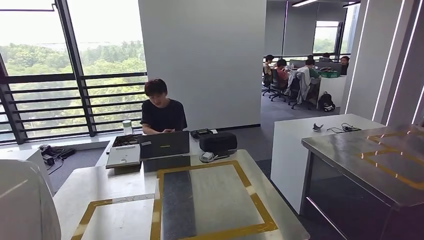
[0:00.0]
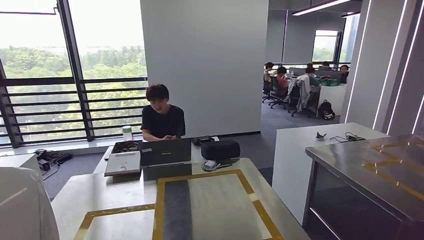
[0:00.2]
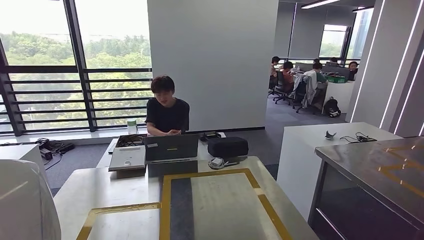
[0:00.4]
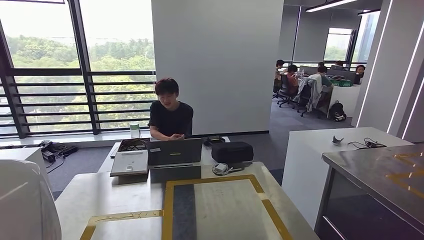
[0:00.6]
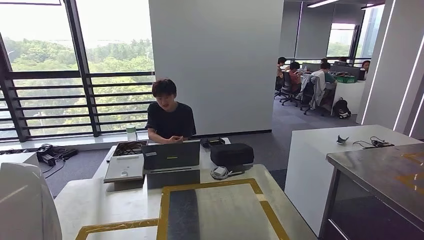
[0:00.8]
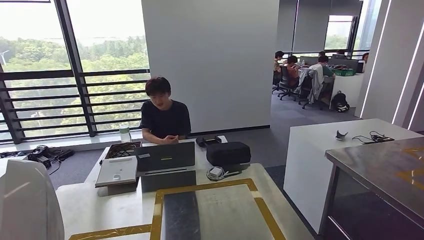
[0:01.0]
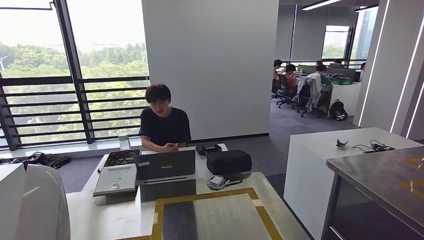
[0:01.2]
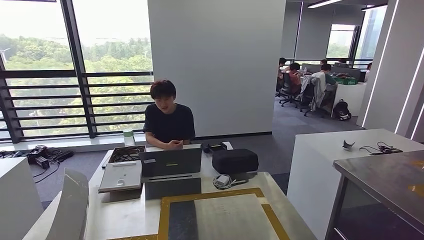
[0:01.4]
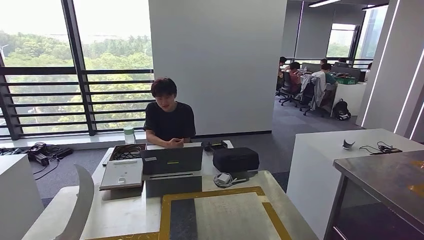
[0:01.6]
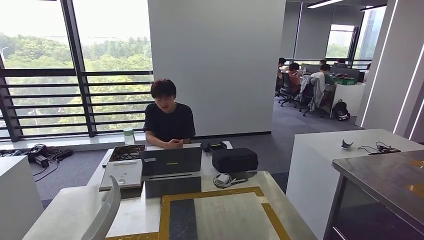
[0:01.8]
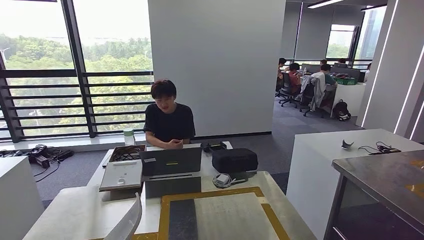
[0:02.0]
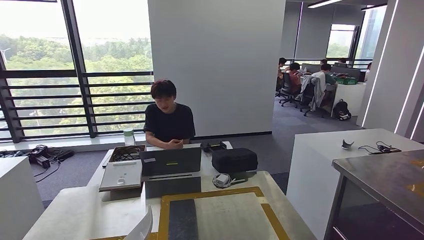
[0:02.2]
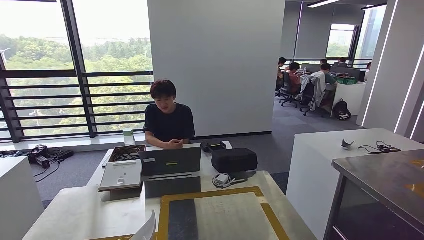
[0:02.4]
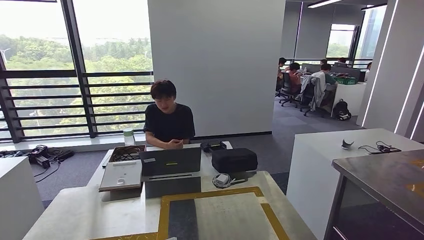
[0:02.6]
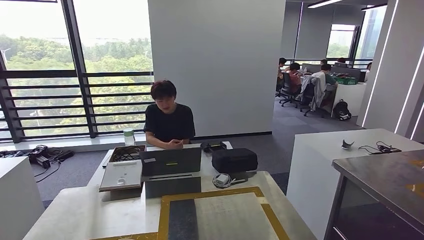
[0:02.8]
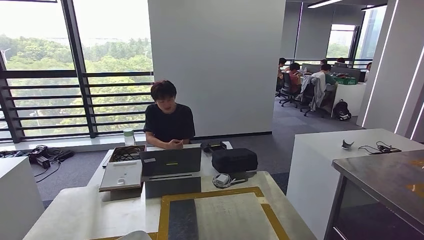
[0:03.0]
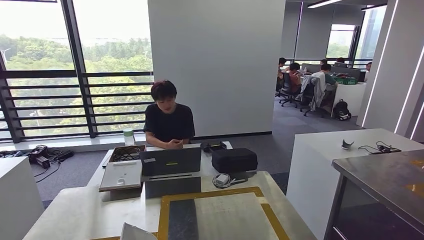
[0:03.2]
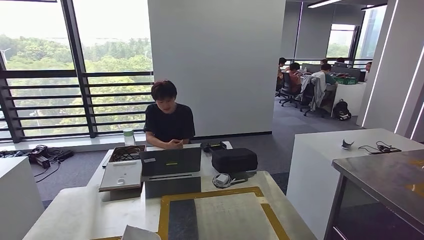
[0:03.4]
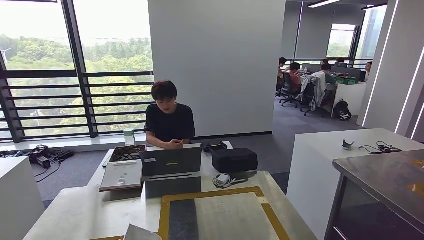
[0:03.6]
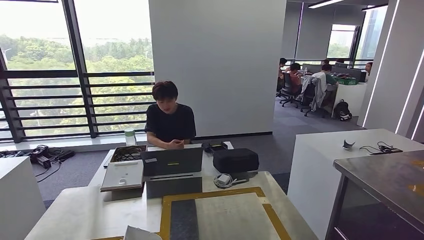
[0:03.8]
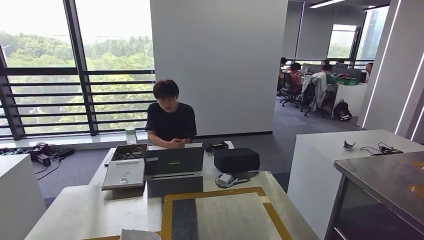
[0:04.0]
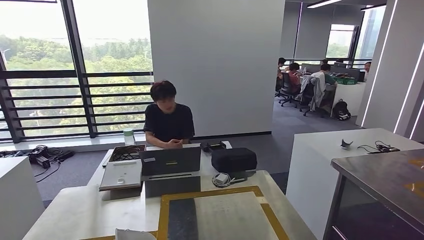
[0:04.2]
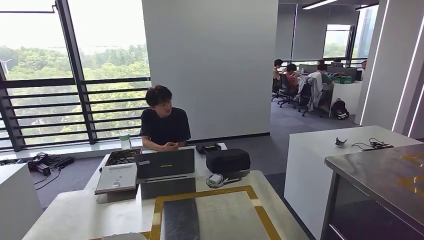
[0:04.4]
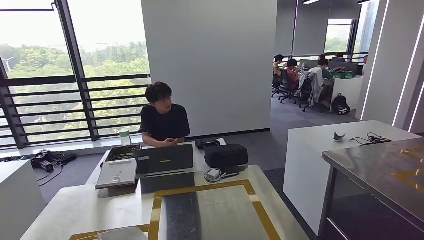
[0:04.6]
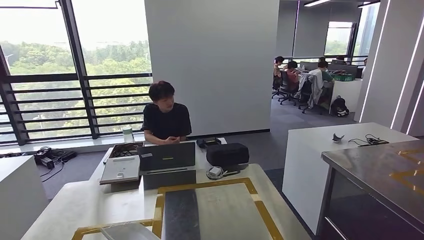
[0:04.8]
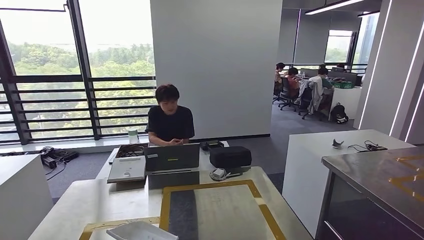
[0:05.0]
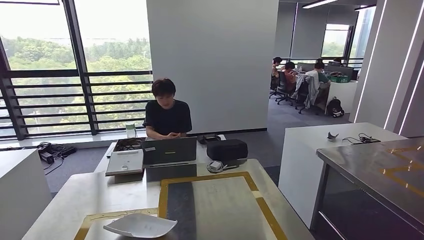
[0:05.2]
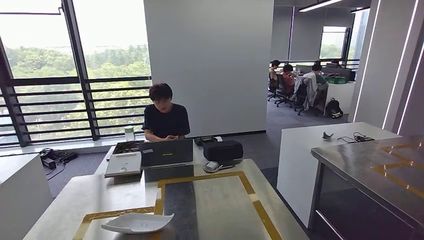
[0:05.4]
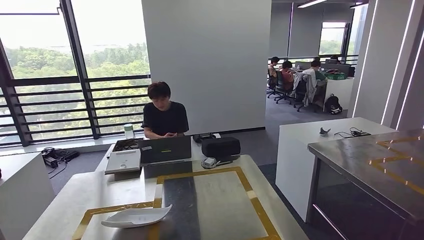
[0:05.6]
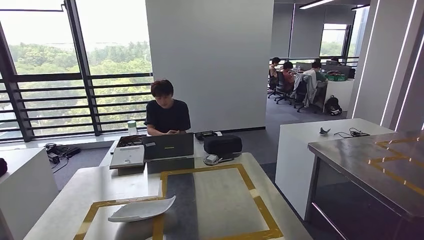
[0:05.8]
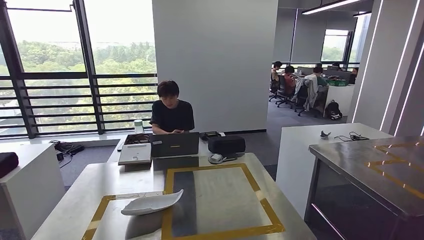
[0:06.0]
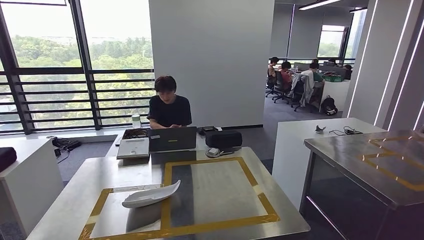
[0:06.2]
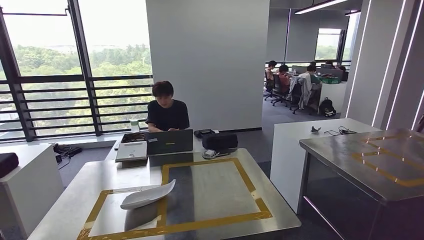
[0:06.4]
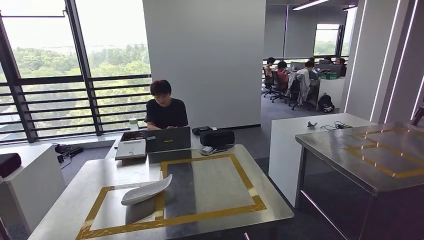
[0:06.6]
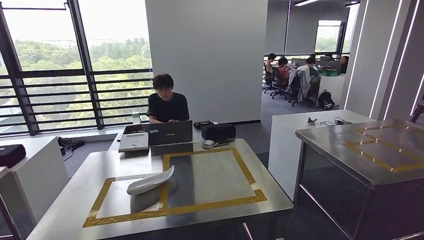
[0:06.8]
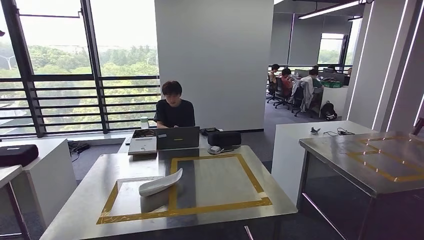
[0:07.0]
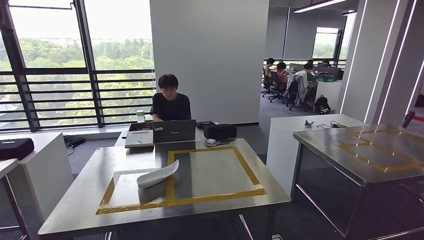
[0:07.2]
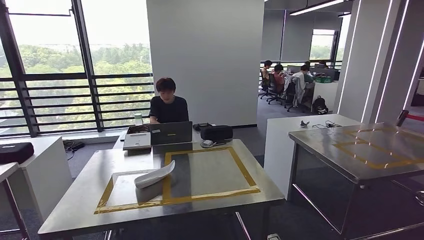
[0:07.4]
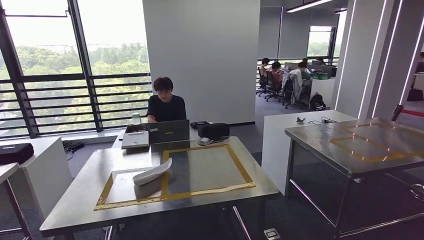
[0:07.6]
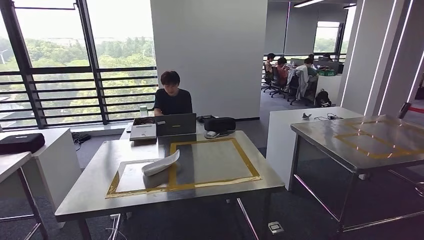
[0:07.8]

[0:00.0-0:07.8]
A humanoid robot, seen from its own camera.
Step, 0:00.0 to 0:06.0: Insert the small component into the corresponding slot on the workbench.
Step, 0:06.4 to 0:07.8: Return to the initial position at the workbench.
0:01.6 to 0:03.2: The left hand goes roughly 10 cm downward and to the right.

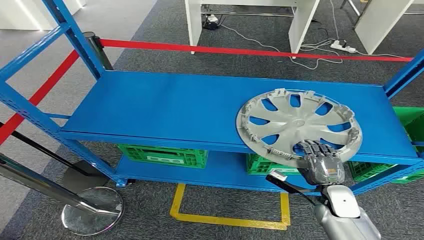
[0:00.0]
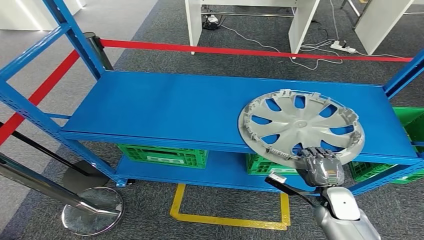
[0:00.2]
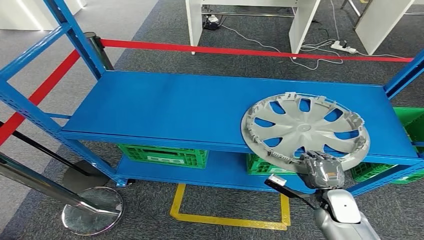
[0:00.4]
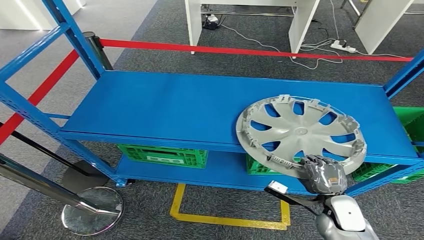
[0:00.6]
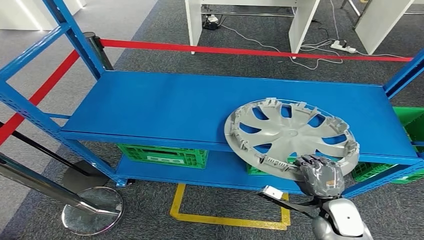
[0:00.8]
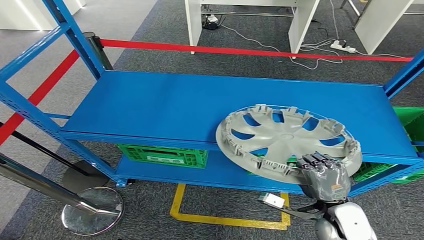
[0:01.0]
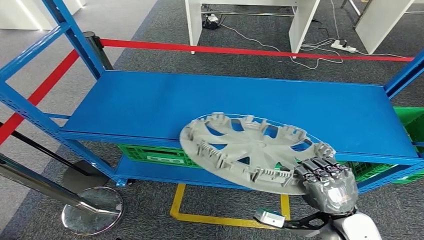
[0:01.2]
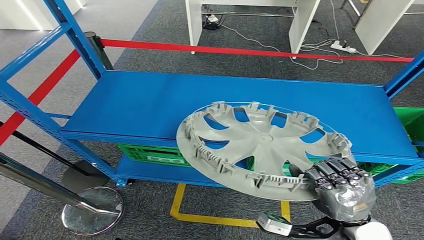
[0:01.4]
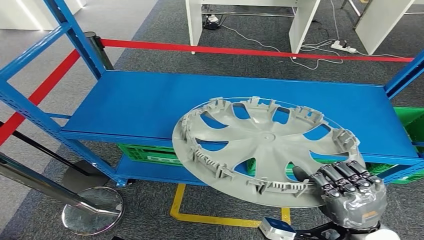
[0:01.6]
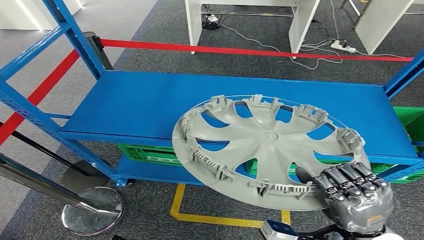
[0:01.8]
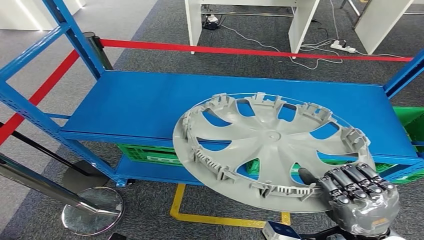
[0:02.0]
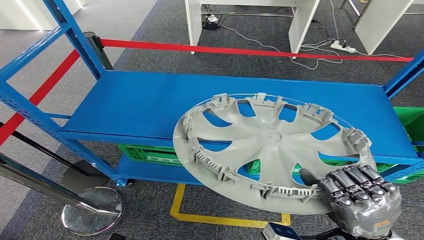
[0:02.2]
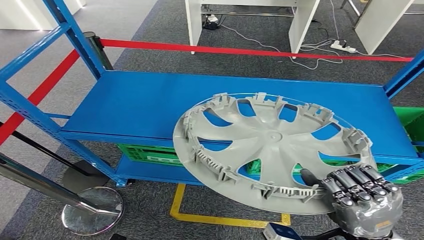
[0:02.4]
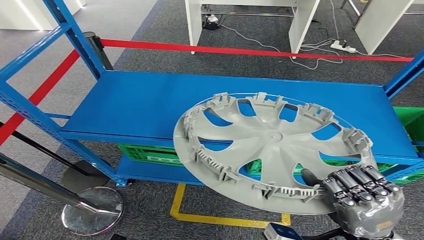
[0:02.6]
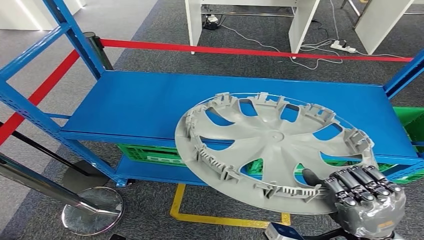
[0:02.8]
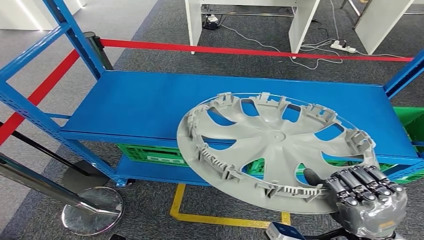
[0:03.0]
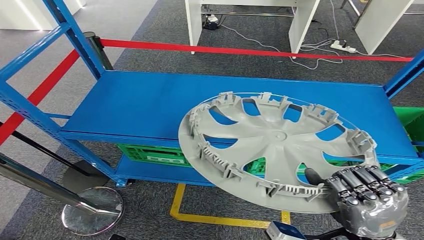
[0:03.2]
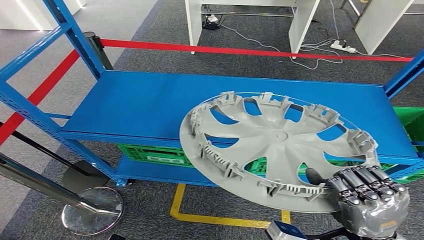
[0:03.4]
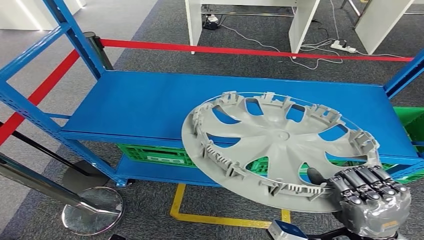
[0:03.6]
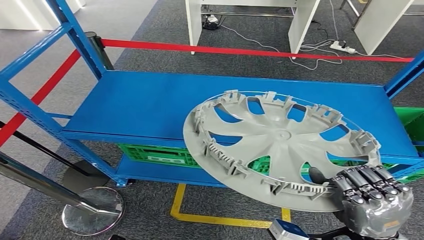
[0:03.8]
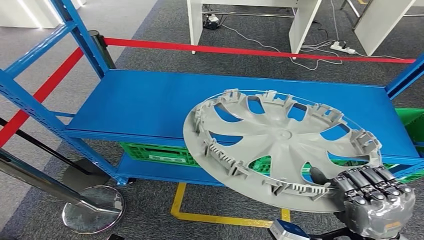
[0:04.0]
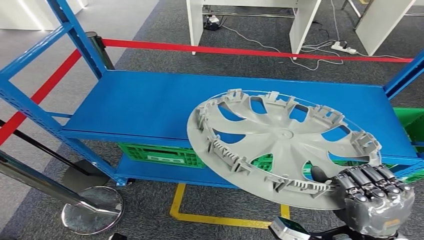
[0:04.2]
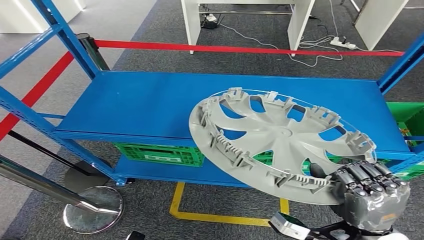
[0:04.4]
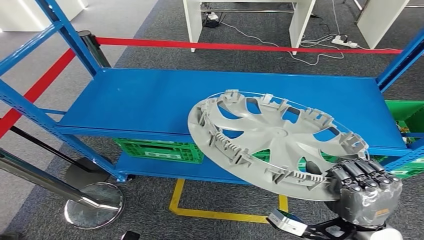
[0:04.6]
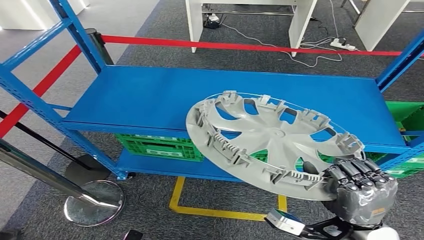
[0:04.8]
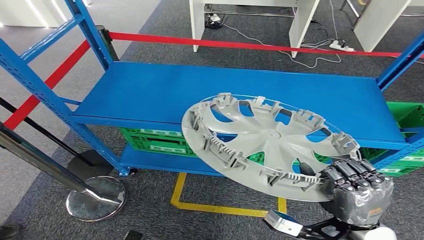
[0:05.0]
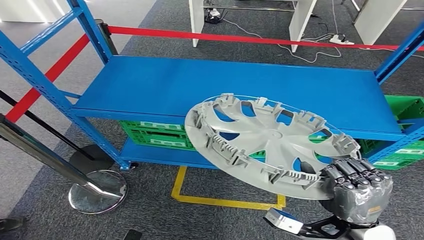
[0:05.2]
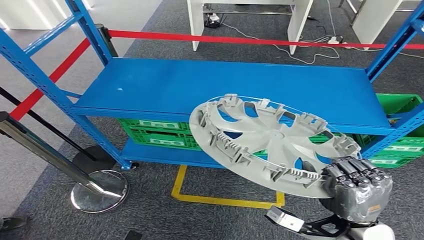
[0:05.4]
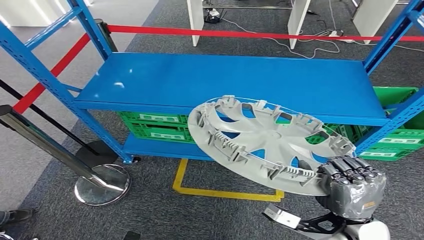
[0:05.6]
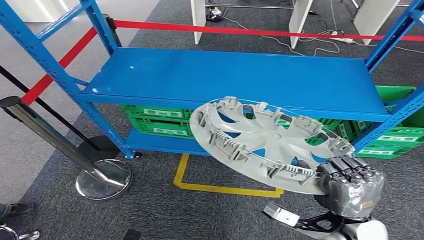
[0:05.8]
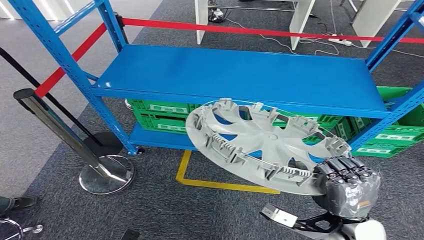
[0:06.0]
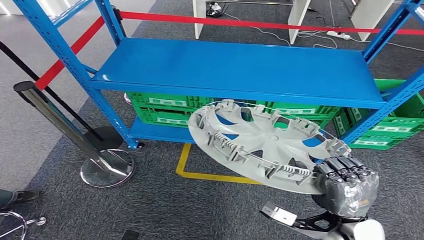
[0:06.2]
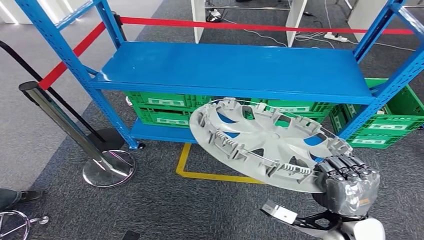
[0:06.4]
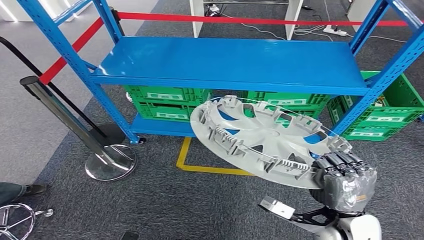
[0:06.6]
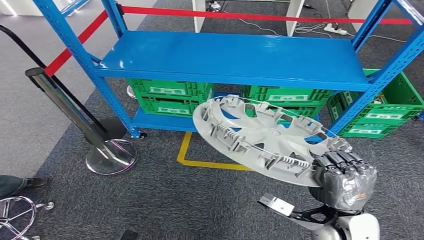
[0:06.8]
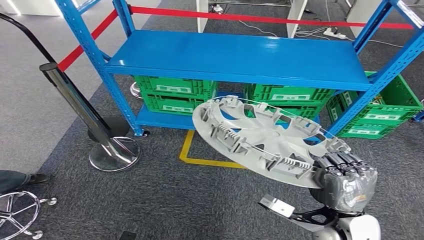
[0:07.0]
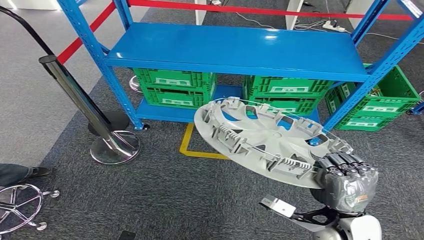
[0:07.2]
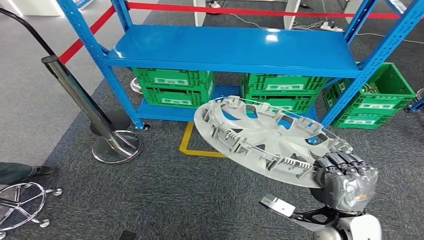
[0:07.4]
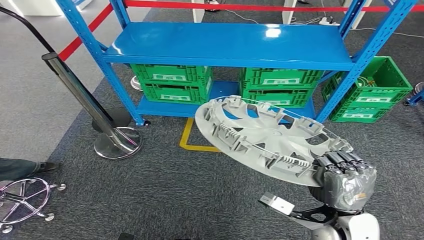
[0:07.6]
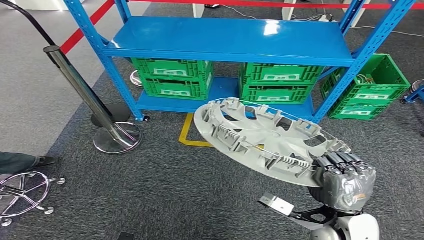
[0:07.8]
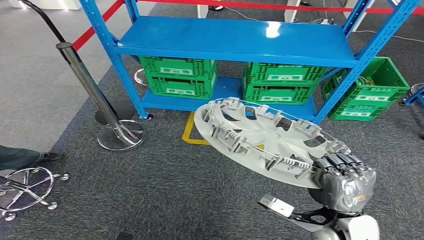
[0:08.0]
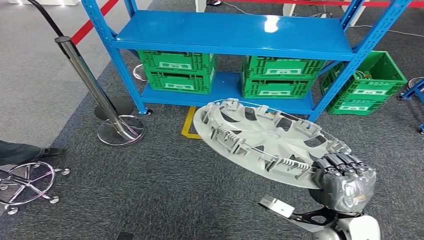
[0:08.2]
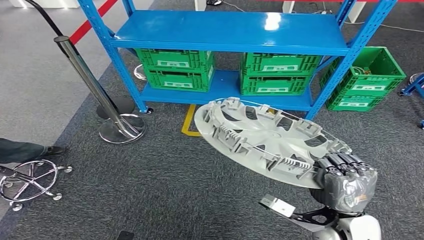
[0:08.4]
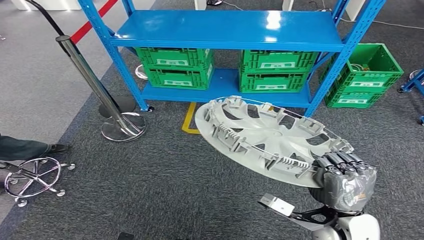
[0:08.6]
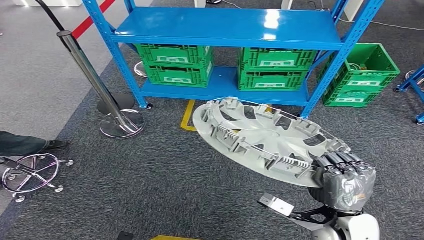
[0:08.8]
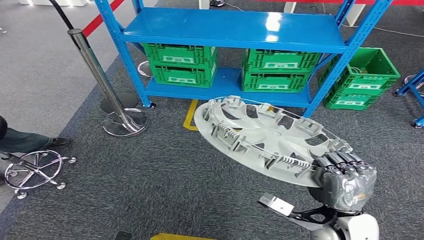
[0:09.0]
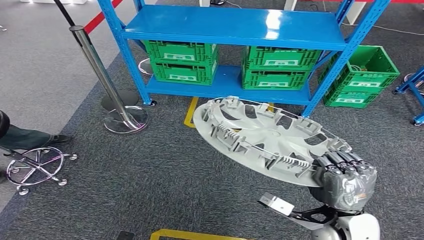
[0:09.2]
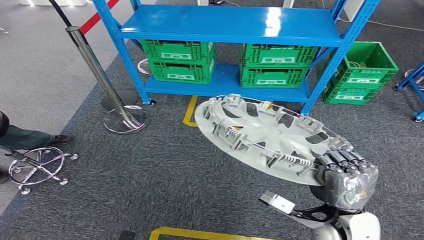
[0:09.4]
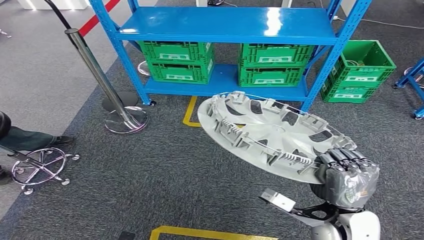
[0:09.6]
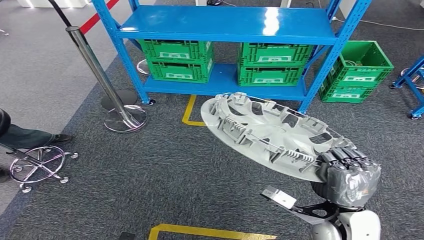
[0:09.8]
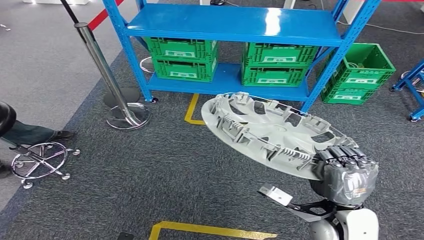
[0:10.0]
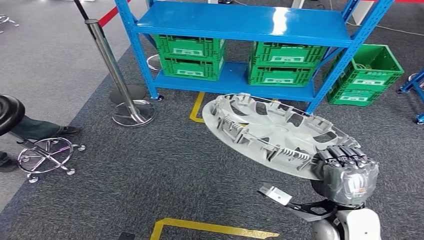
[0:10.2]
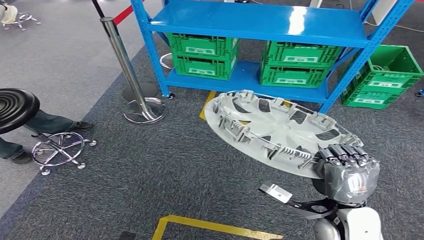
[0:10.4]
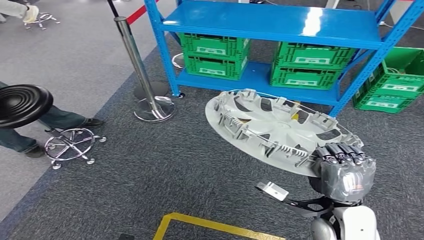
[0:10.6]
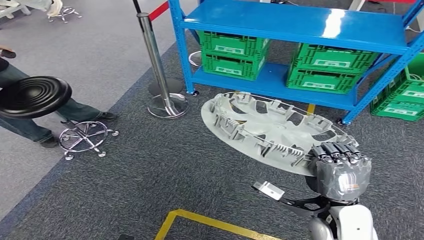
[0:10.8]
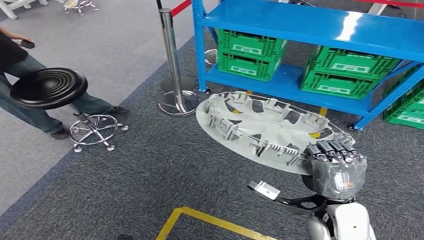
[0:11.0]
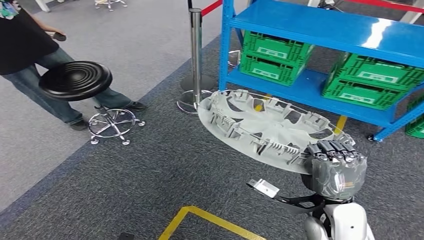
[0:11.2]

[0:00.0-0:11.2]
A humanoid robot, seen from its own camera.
Step, 0:00.0 to 0:03.2: Pick up the small component from the shelf.
0:01.6 to 0:03.2: There are only small adjustments of the hands.
